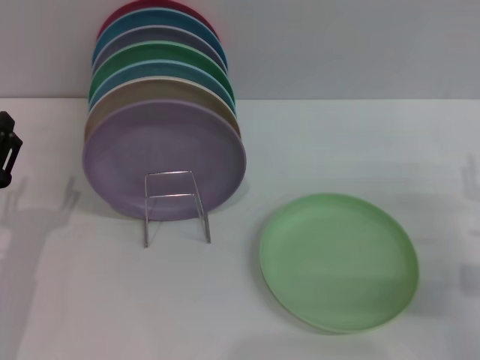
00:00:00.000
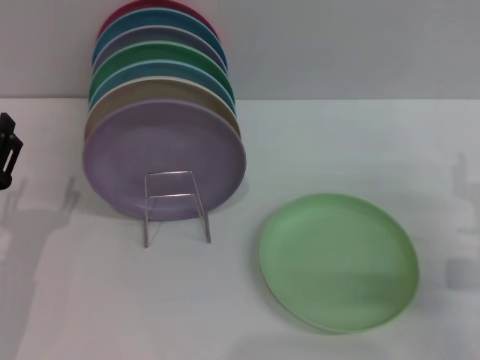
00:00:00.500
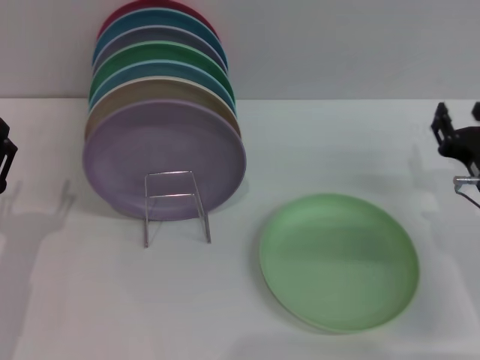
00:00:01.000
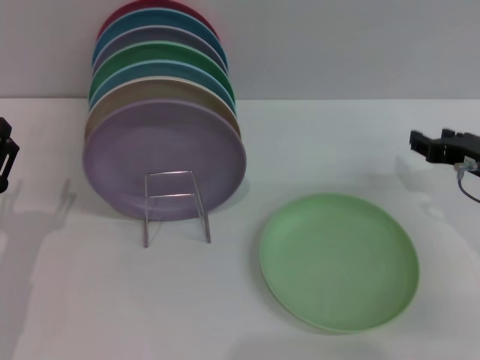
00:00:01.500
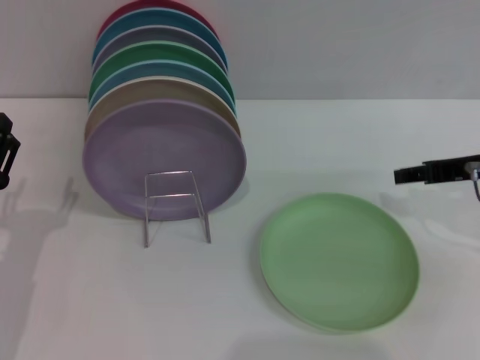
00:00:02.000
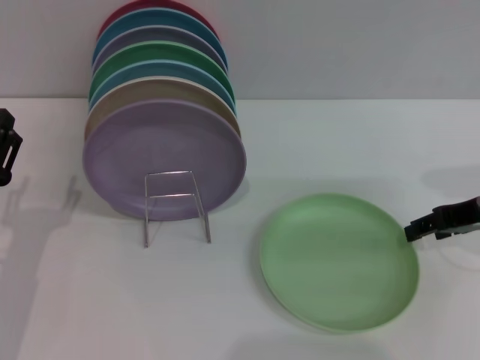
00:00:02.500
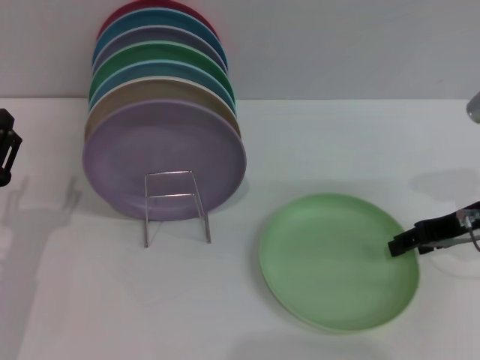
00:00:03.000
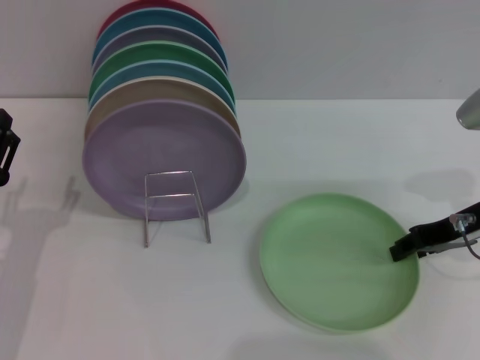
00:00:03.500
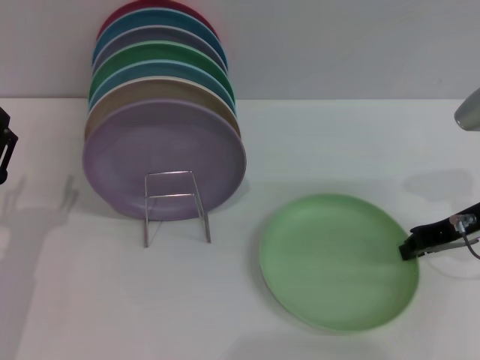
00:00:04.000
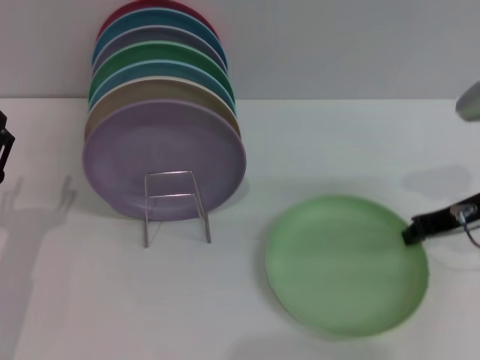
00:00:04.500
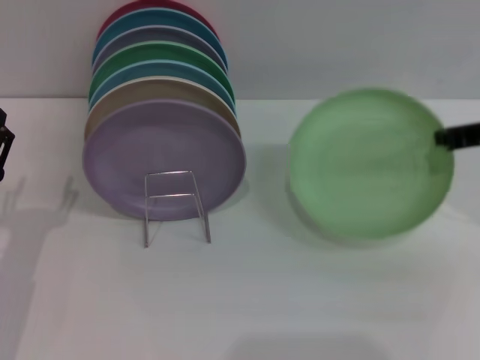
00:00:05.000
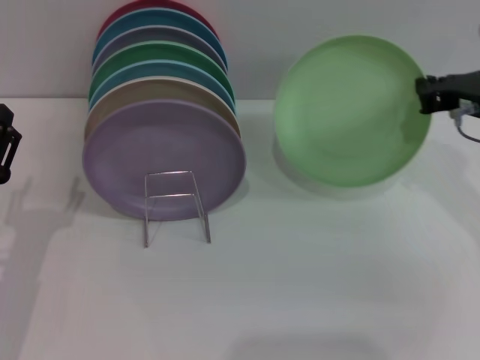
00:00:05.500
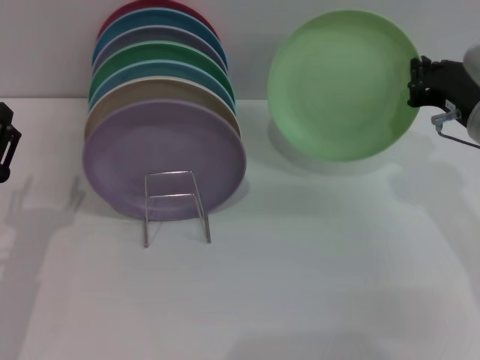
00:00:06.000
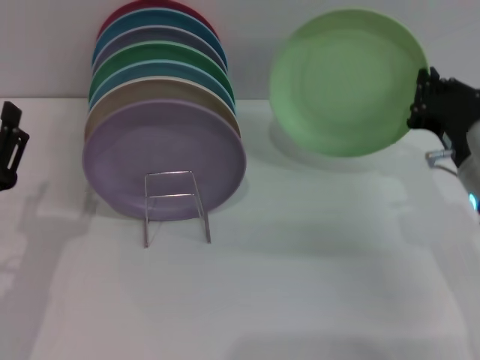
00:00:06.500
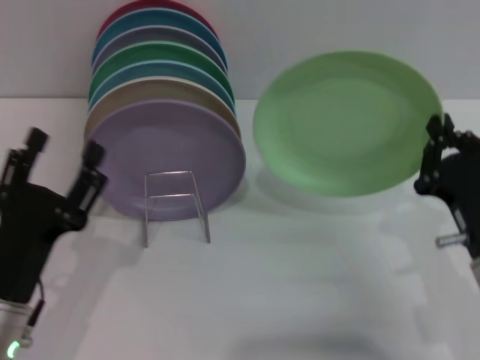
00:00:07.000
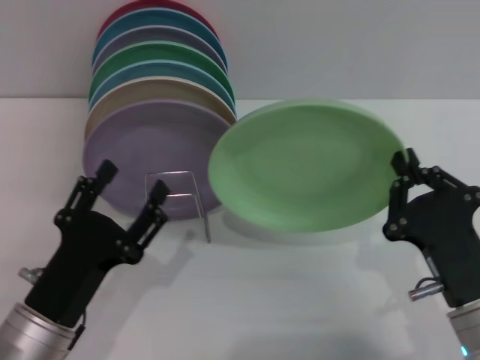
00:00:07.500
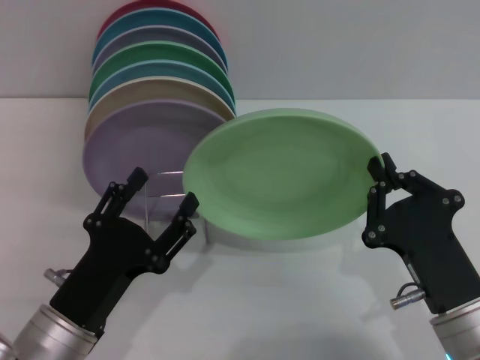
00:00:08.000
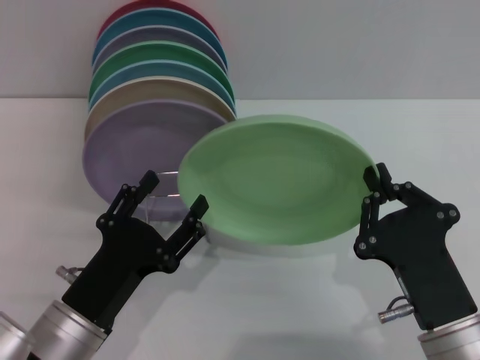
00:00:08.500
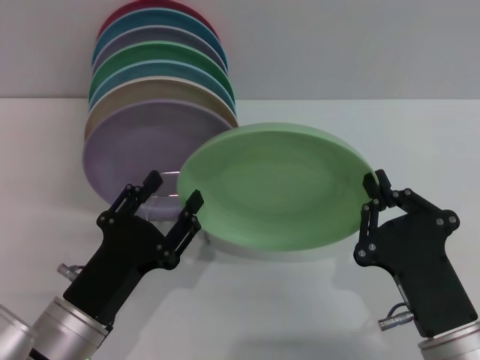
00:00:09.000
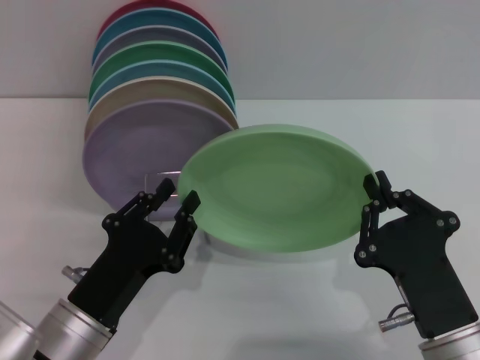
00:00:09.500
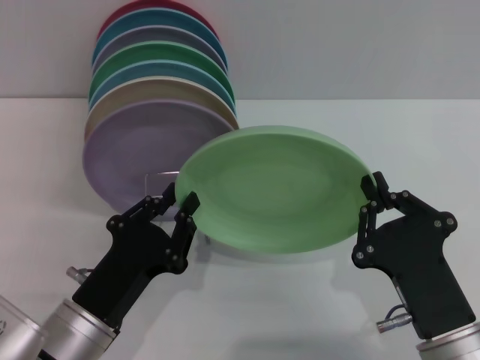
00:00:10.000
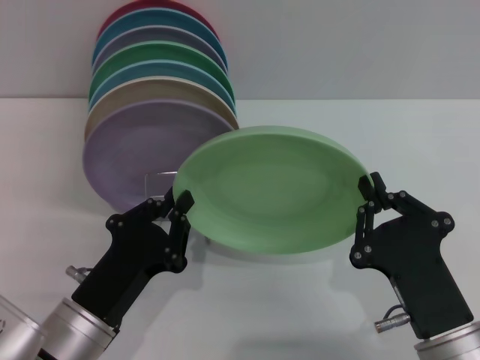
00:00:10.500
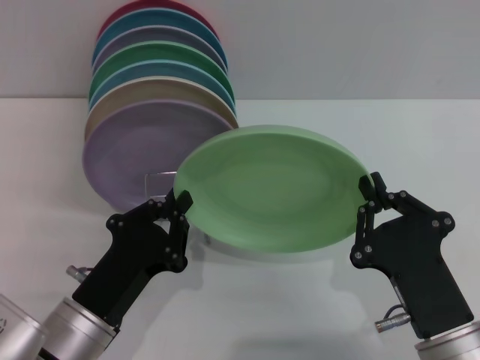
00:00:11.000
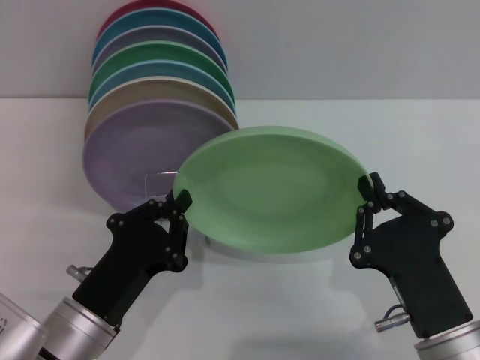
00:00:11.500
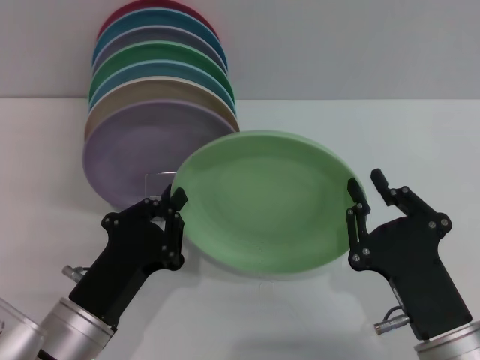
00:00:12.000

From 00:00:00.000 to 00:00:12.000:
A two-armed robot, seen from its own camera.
Task of the whole recording: Grip the plate with one hand, pass it to the other, then set it on the shelf.
Step, from 00:00:00.000 to 00:00:06.000: Pick up the plate with the right gripper.
From 00:00:00.000 to 00:00:02.000: The right gripper heads upward and forward, covering some 15 cm.
From 00:00:02.000 to 00:00:04.000: The right gripper closes its fingers.
From 00:00:04.000 to 00:00:06.000: The right gripper closes.
From 00:00:06.000 to 00:00:08.000: The left gripper travels to the right by some 10 cm. The right gripper travels backward and downward by approximately 20 cm.
From 00:00:08.000 to 00:00:10.000: The left gripper closes up.
From 00:00:10.000 to 00:00:12.000: The two grippers keep their place.

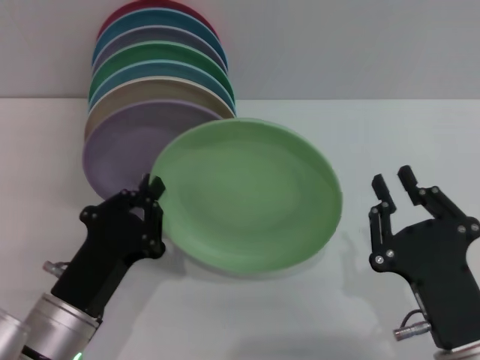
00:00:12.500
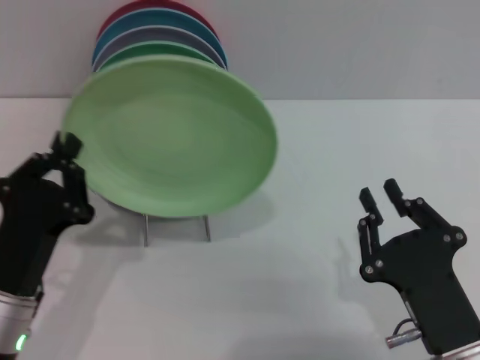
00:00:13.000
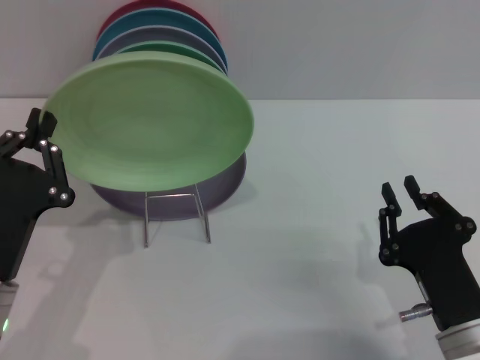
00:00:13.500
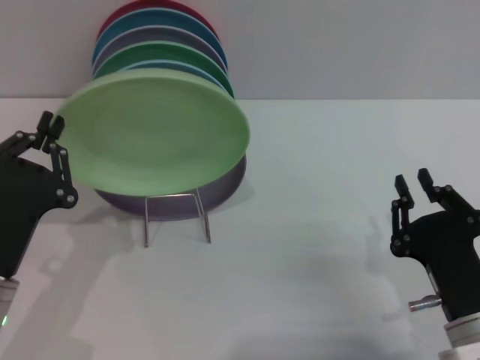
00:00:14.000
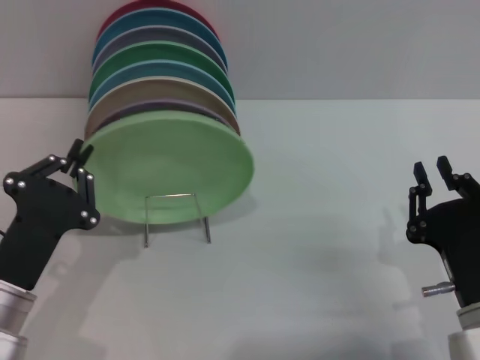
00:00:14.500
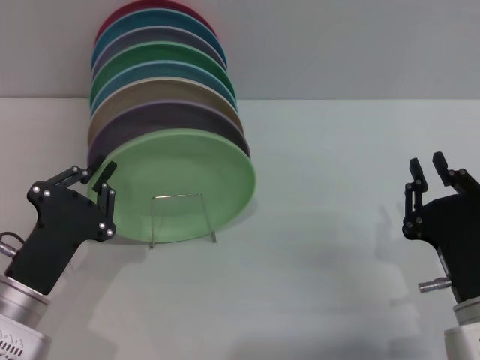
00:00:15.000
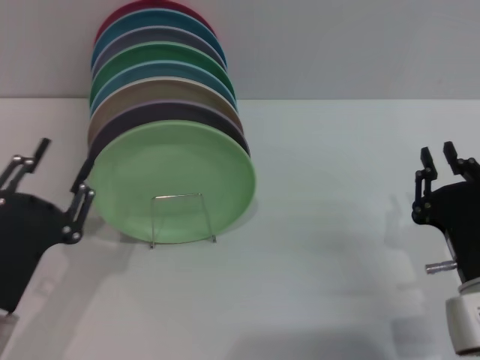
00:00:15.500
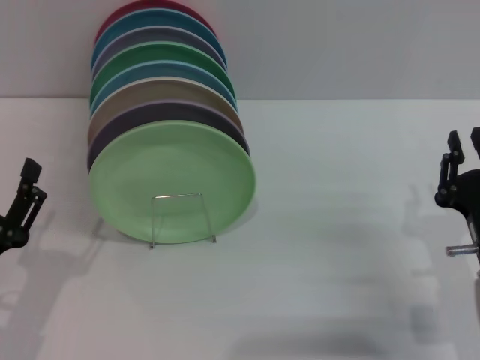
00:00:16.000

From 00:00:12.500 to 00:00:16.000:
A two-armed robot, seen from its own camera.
Task of the whole recording: Grip the plate with one hand, pass it to the other, then set it on the shelf.
Step, from 00:00:13.000 to 00:00:15.500: Place the plate on the shelf with the left gripper.
From 00:00:12.500 to 00:00:14.500: The right gripper moves approximately 5 cm. The left gripper ends up about 5 cm from where it was.
From 00:00:14.500 to 00:00:16.000: The left gripper opens its fingers.
